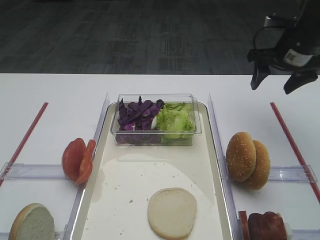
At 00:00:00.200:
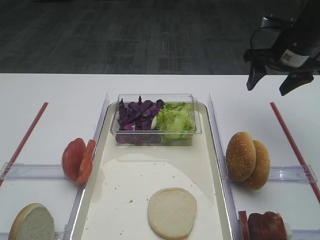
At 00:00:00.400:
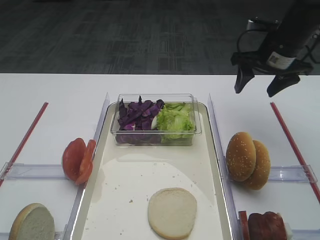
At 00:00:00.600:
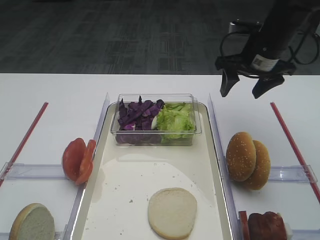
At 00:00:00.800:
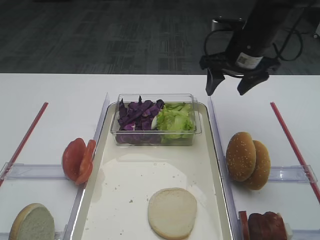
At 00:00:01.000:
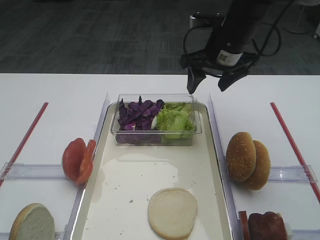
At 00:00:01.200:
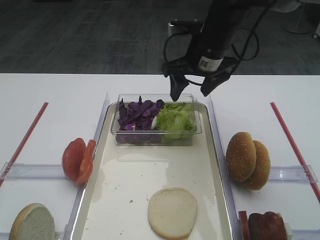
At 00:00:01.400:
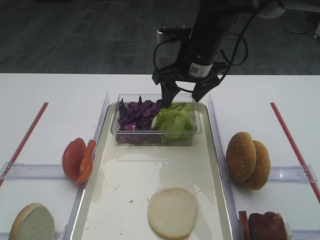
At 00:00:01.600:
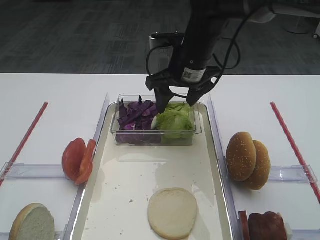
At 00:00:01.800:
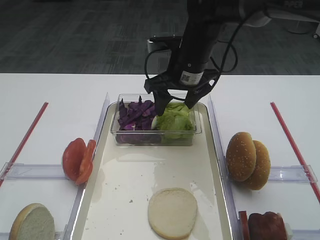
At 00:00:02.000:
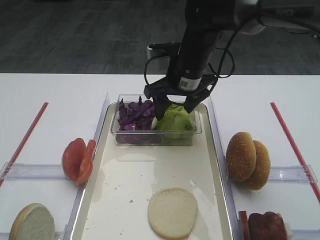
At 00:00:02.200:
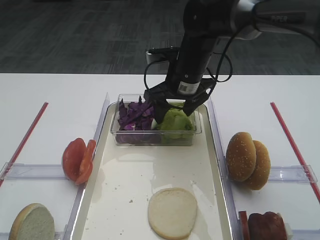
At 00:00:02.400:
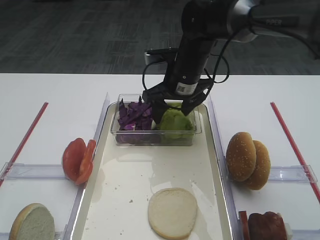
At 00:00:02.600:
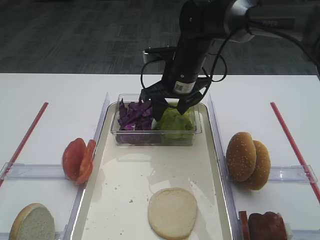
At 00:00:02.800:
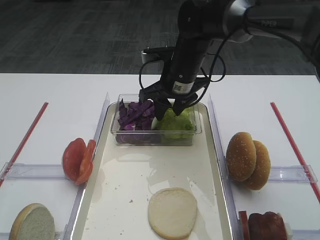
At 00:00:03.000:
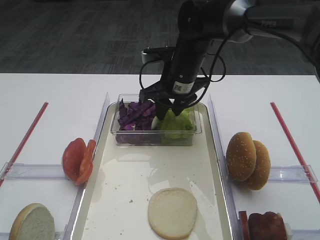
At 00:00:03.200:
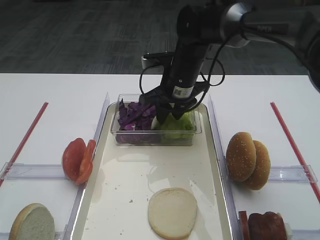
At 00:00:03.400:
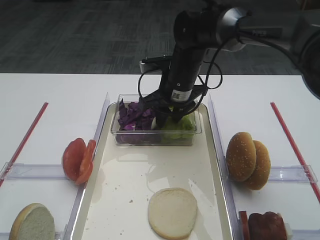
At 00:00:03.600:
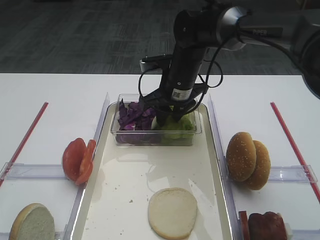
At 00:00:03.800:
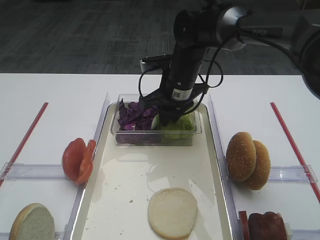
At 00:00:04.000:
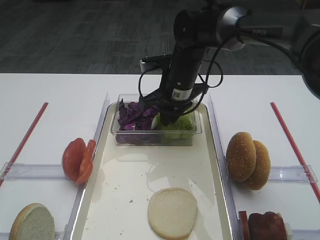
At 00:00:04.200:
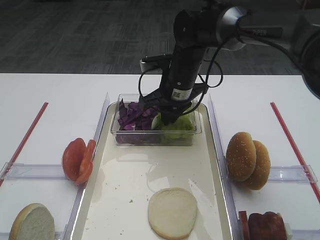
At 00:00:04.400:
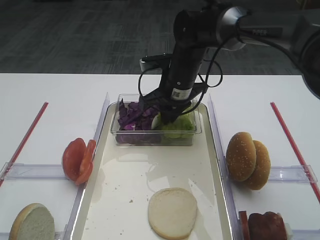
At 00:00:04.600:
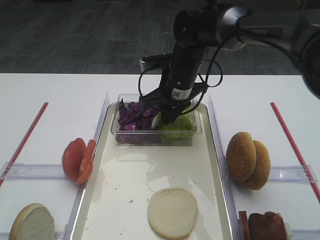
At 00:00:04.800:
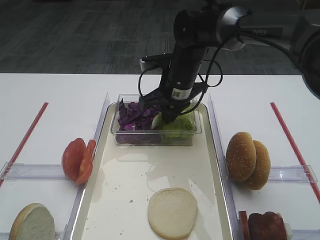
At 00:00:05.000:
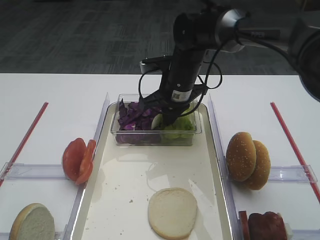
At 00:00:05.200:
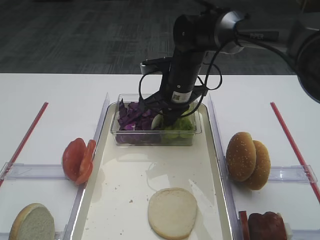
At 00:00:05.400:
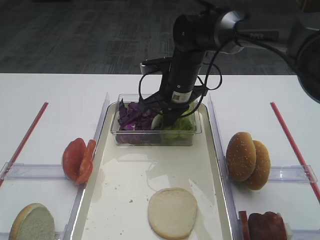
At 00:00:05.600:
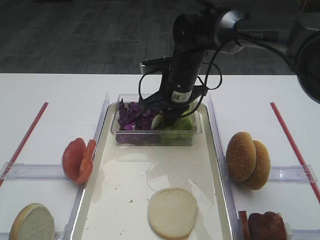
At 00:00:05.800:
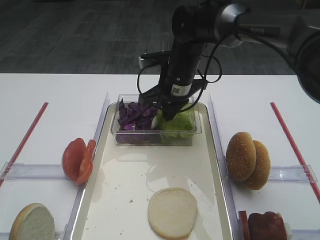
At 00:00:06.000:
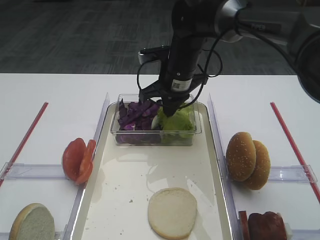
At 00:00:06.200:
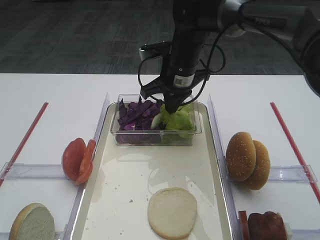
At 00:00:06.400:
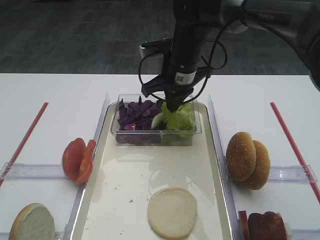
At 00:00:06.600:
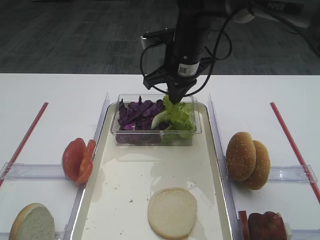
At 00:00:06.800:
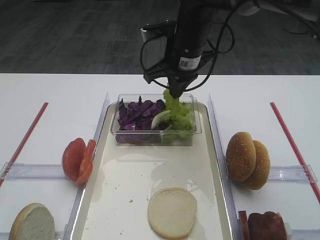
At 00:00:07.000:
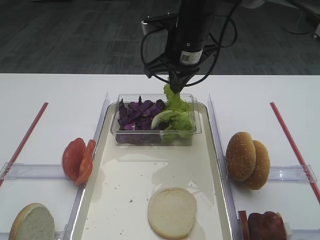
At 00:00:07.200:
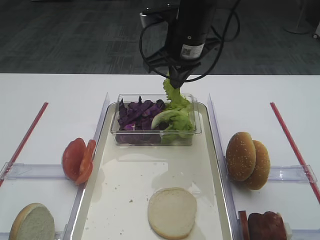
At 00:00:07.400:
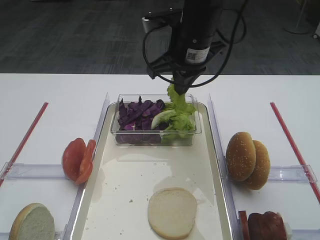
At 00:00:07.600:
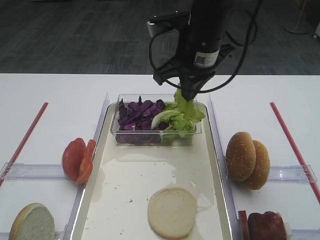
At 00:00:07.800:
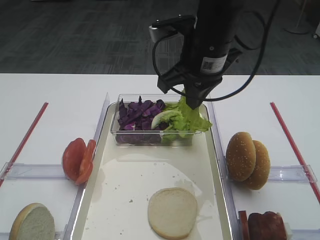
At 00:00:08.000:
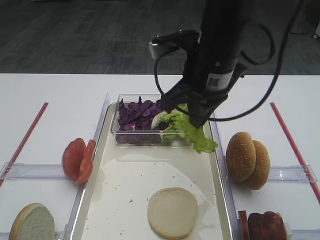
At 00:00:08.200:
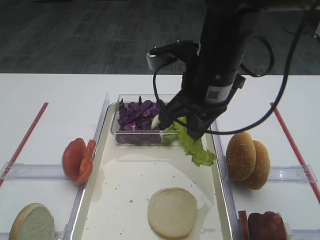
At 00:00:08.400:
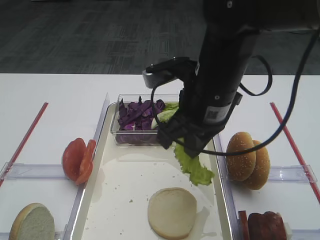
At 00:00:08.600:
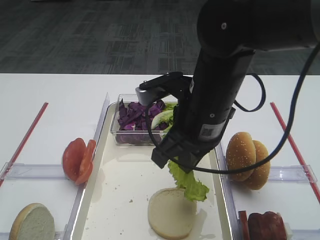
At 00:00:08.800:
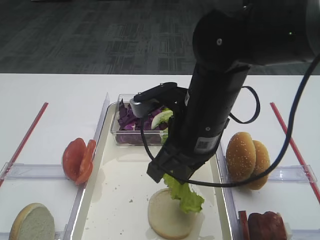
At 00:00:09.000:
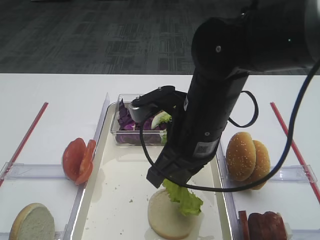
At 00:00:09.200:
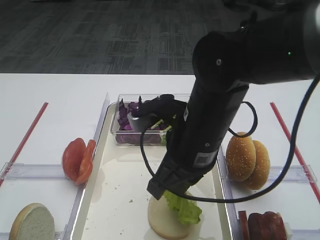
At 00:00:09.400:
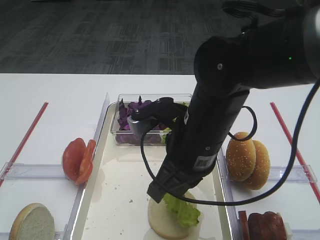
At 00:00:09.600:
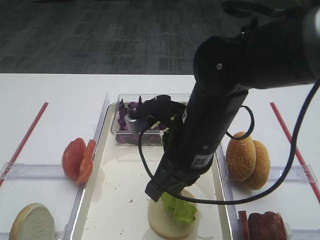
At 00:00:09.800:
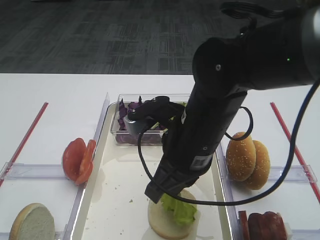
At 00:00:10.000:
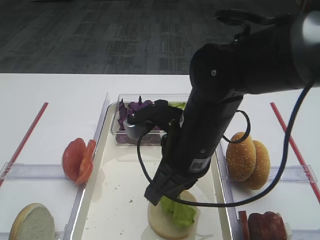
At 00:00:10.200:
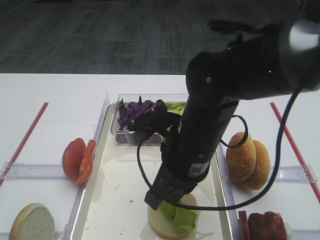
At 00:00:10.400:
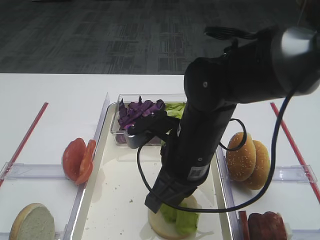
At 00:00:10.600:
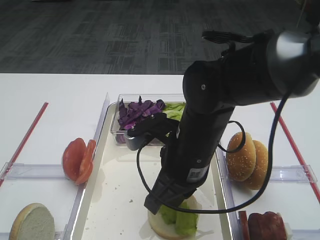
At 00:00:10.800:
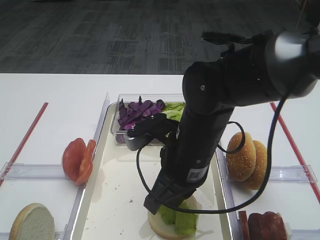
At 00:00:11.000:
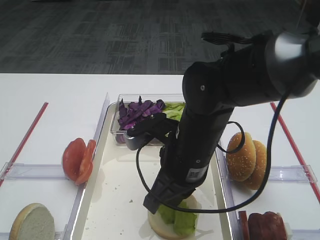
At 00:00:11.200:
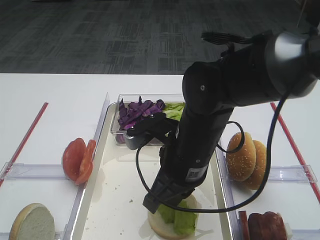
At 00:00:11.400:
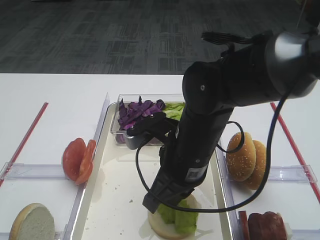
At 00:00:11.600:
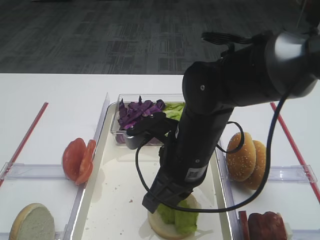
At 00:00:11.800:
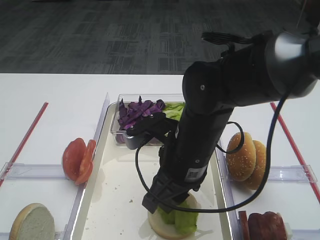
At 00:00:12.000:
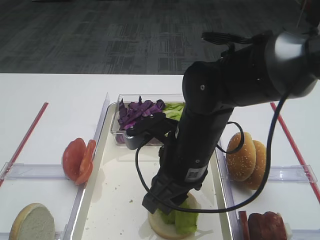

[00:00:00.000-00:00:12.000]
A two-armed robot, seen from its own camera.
Step, 00:00:00.000 to 00:00:06.800: Pick up the lettuce leaf with the right gripper.
00:00:00.000 to 00:00:01.600: The right gripper heads to the left, covering approximately 20 cm.
00:00:01.600 to 00:00:03.000: The right gripper closes.
00:00:03.000 to 00:00:04.400: The right gripper closes.
00:00:04.400 to 00:00:06.000: There are only small adjustments of the grippers.
00:00:06.000 to 00:00:07.600: The right gripper shifts approximately 10 cm upward and backward.
00:00:07.600 to 00:00:09.000: The right gripper moves backward and downward, approximately 15 cm.
00:00:09.000 to 00:00:10.400: The grippers make only small movements.
00:00:10.400 to 00:00:12.000: The right gripper opens.

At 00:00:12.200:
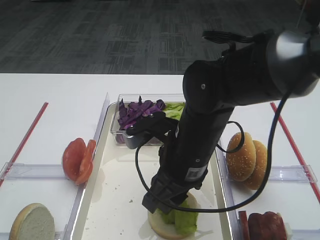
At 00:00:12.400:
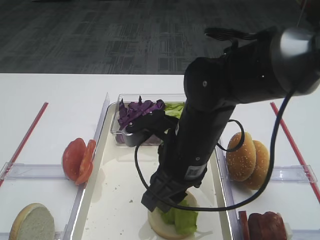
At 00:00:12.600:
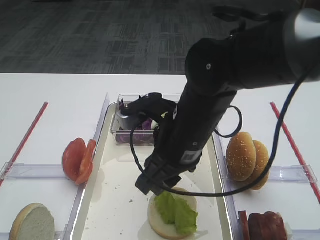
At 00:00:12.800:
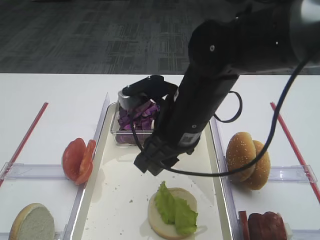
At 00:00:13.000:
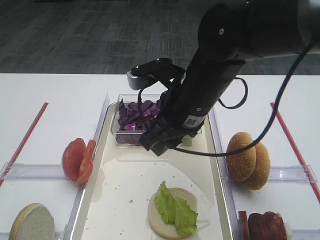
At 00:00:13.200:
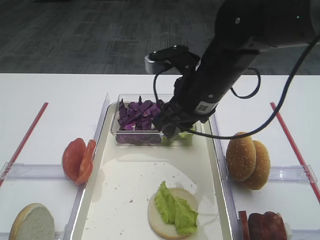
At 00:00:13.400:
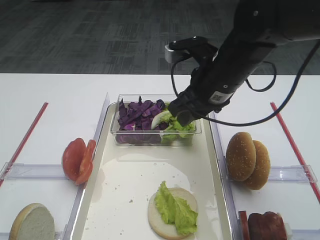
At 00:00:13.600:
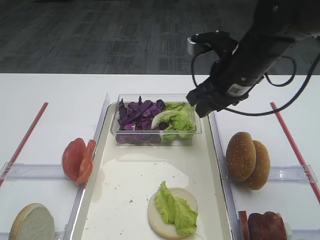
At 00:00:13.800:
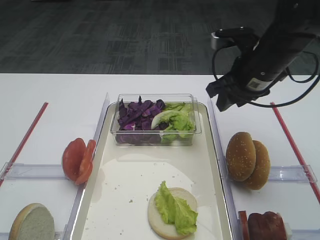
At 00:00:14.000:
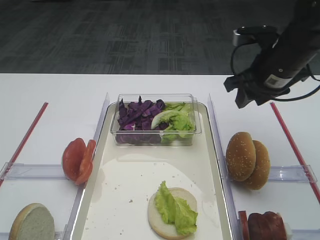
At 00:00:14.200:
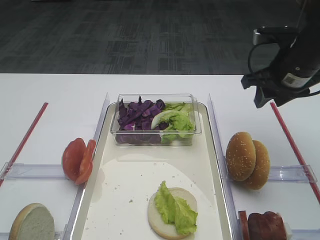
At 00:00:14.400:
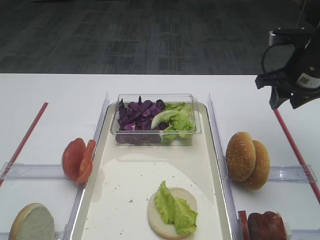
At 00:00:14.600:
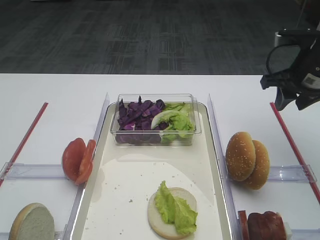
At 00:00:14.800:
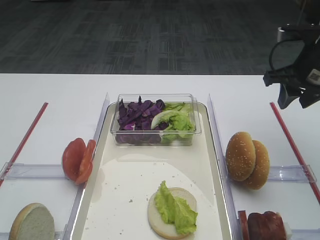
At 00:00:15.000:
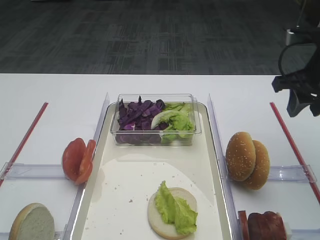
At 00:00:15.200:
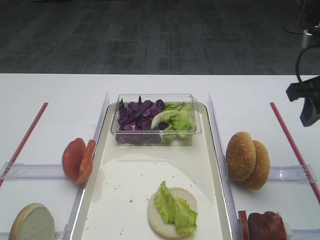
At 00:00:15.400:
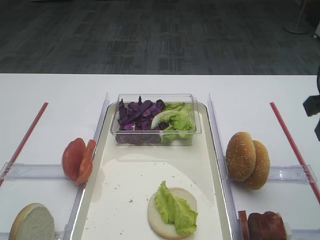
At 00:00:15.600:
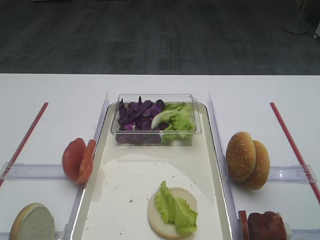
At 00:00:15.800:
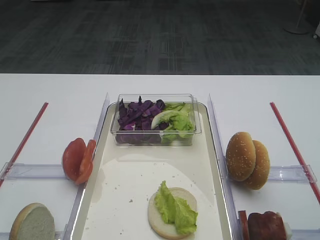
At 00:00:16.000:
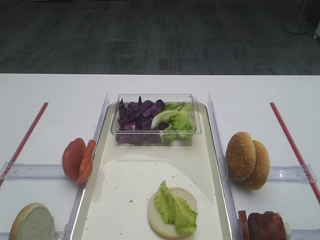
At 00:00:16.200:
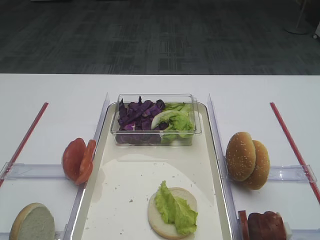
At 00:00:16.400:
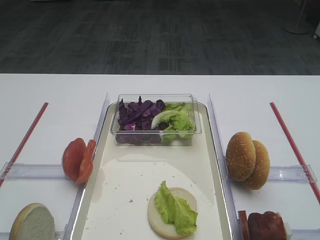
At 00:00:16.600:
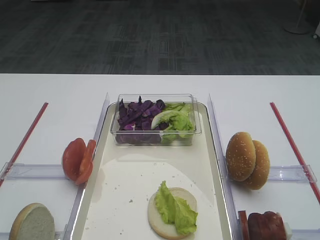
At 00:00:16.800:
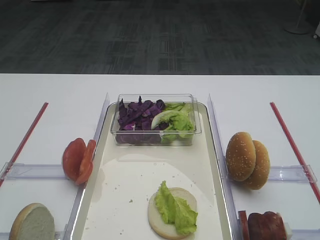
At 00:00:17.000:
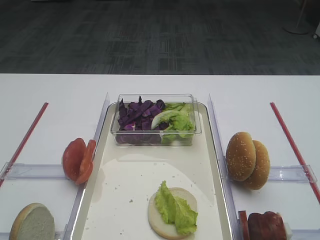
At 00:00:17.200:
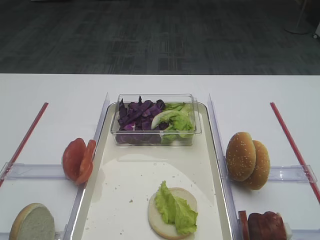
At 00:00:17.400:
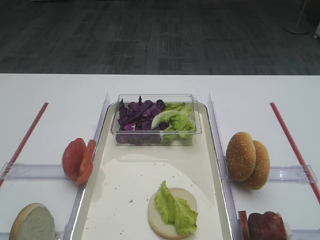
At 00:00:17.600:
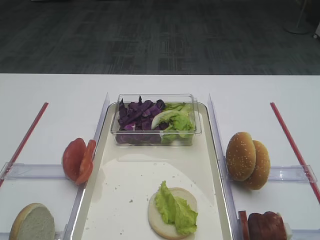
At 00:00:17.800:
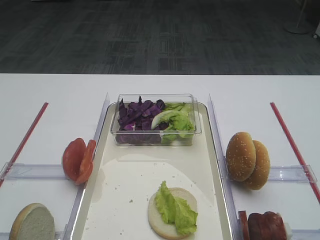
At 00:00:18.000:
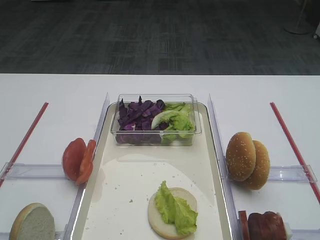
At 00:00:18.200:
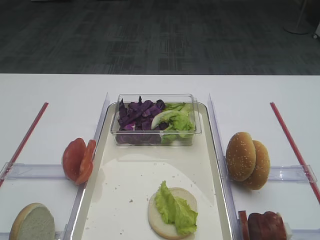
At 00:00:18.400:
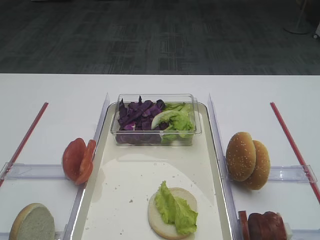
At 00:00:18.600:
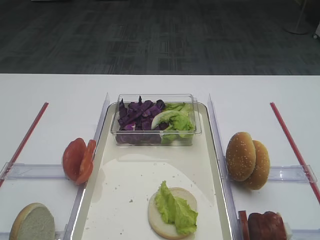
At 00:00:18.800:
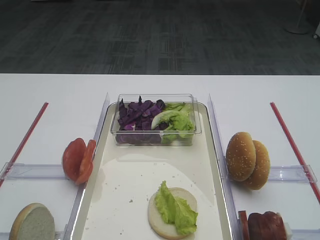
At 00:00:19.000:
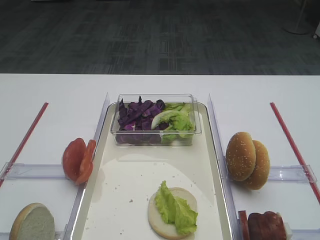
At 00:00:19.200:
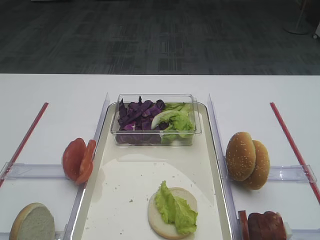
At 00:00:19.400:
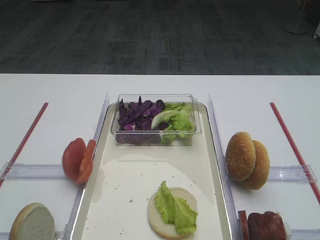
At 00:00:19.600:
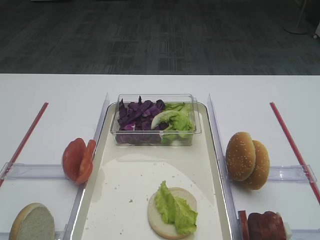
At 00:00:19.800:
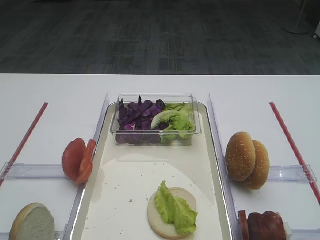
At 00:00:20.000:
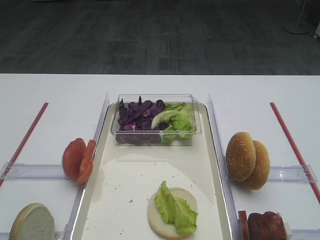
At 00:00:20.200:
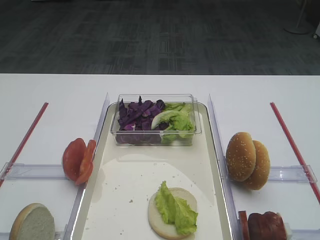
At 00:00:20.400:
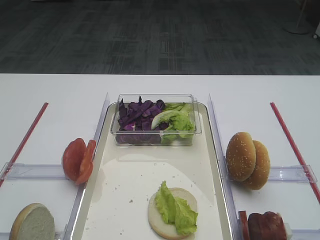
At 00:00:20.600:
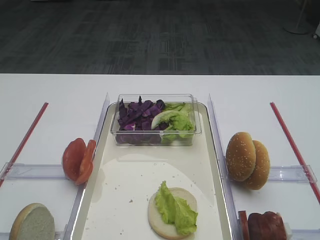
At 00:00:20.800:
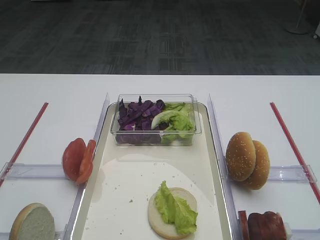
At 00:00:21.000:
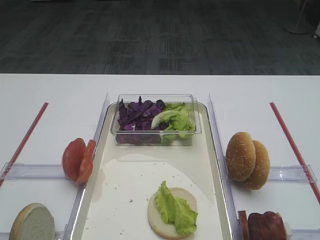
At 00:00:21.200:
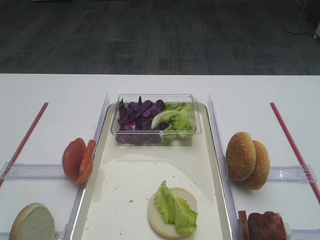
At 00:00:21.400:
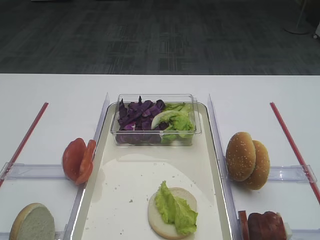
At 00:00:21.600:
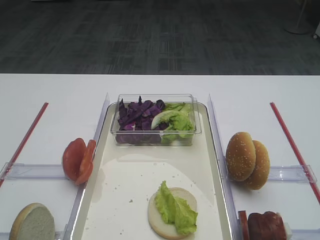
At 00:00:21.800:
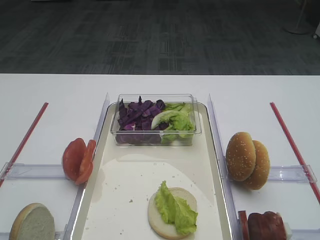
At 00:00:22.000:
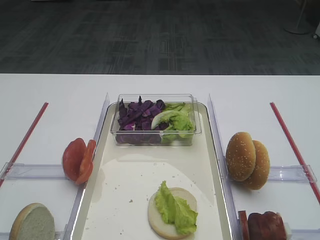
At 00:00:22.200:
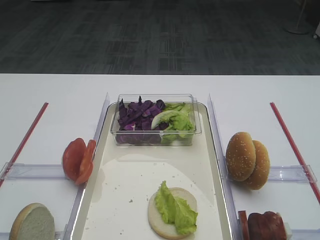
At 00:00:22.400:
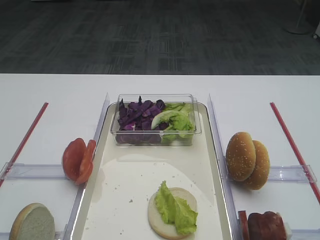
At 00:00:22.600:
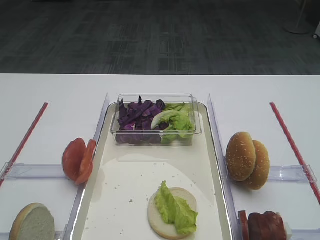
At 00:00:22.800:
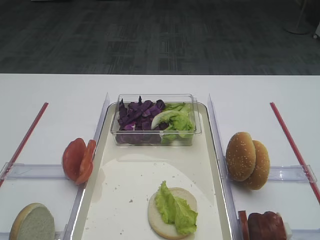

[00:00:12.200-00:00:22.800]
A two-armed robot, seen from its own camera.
00:00:12.200 to 00:00:13.800: The right gripper is displaced to the right, forward and upward by roughly 20 cm.
00:00:13.800 to 00:00:15.200: The right gripper shifts about 10 cm to the right and backward.
00:00:15.200 to 00:00:16.800: The right gripper is displaced backward by about 25 cm.
00:00:19.800 to 00:00:22.800: Neither gripper changes place.
